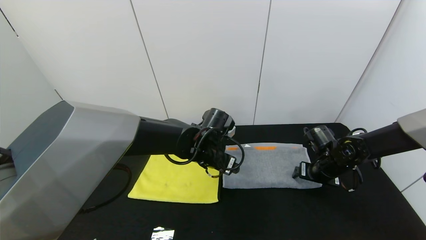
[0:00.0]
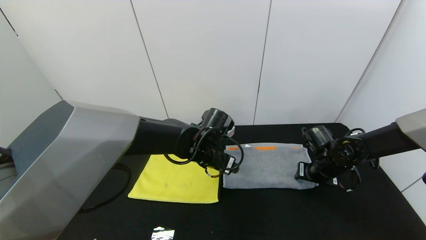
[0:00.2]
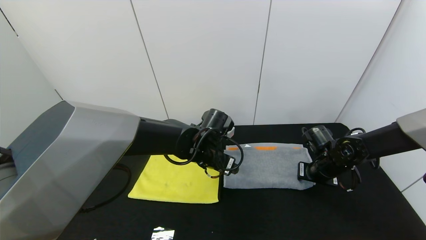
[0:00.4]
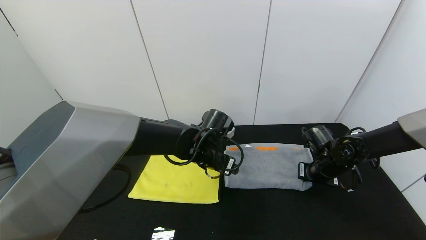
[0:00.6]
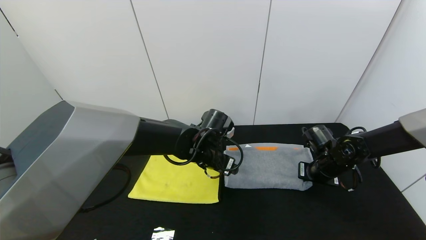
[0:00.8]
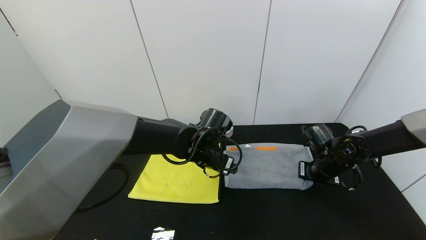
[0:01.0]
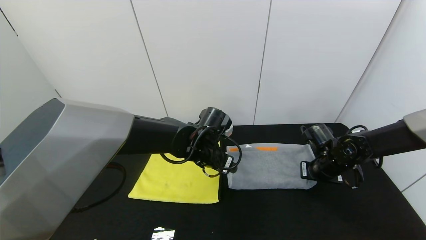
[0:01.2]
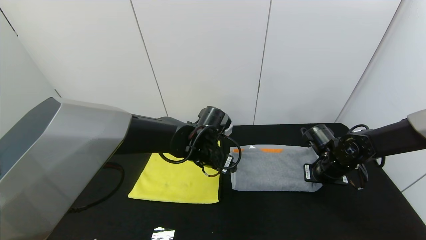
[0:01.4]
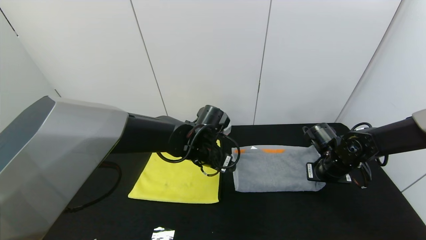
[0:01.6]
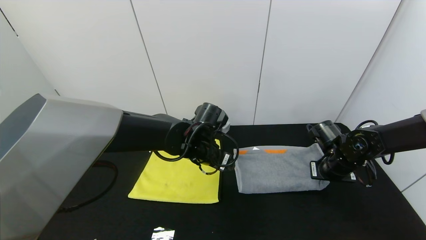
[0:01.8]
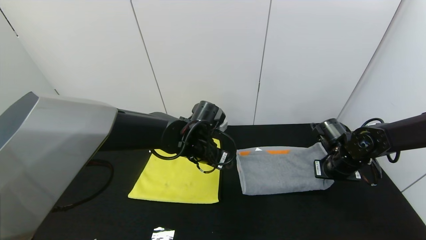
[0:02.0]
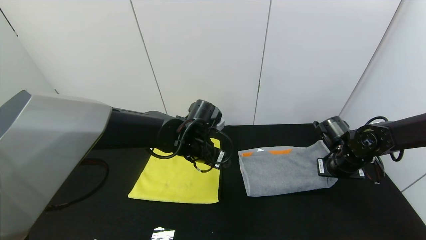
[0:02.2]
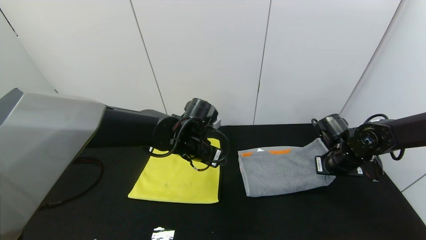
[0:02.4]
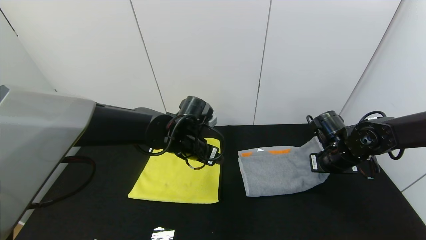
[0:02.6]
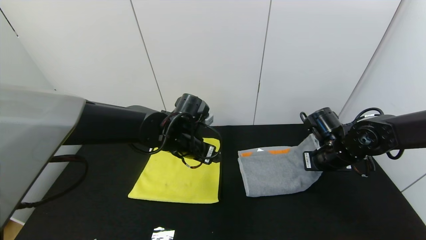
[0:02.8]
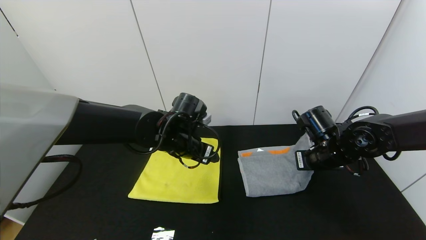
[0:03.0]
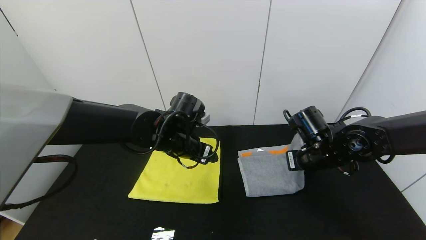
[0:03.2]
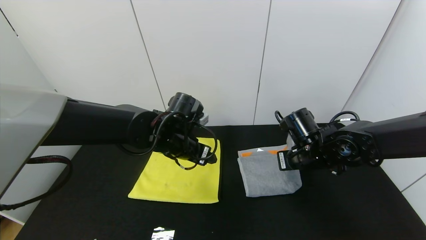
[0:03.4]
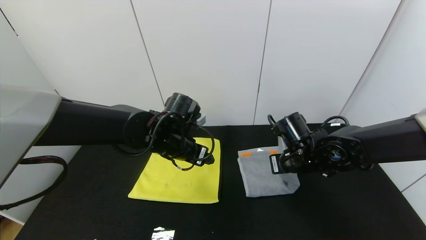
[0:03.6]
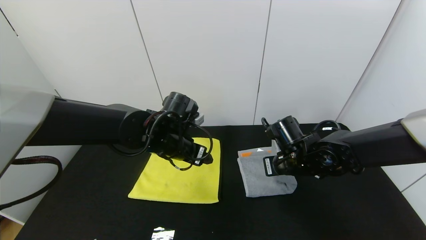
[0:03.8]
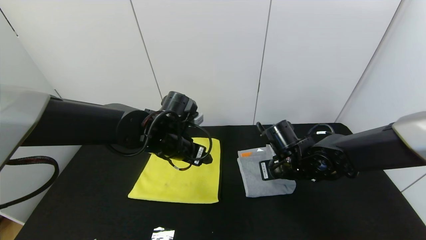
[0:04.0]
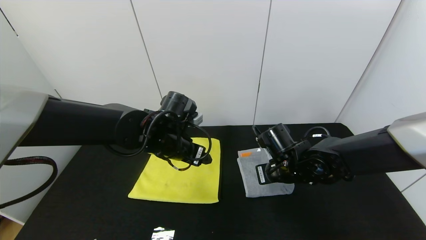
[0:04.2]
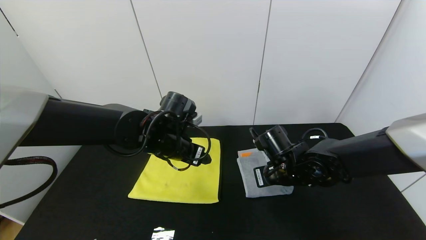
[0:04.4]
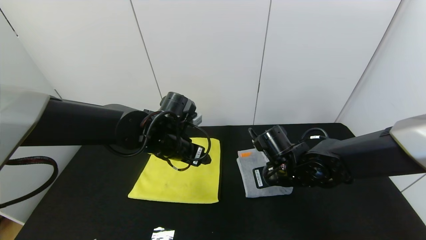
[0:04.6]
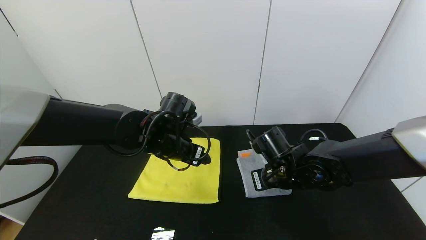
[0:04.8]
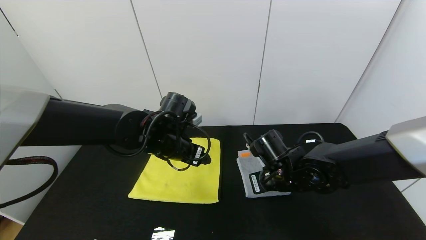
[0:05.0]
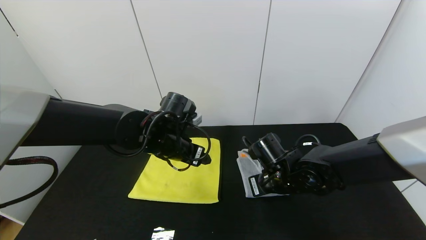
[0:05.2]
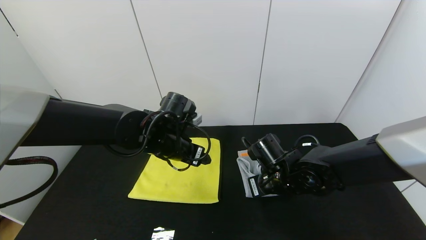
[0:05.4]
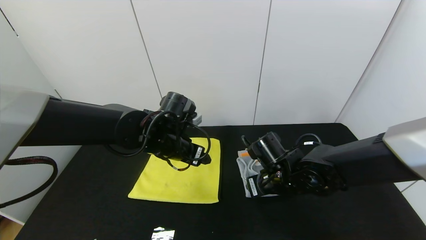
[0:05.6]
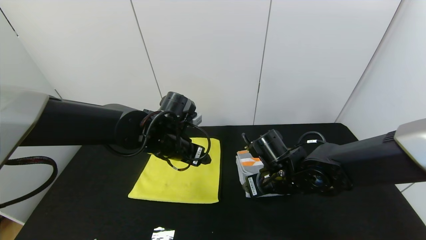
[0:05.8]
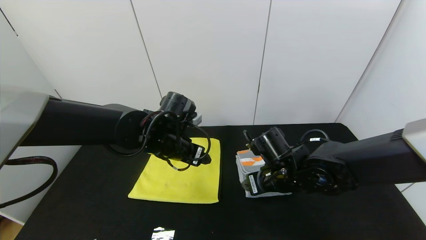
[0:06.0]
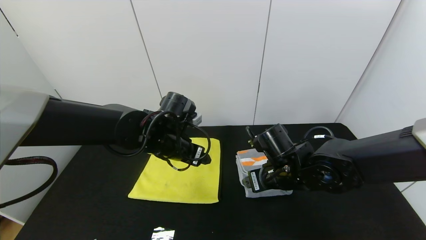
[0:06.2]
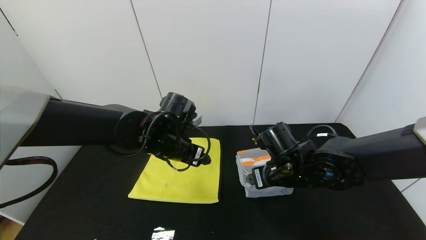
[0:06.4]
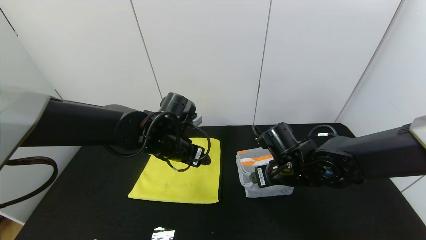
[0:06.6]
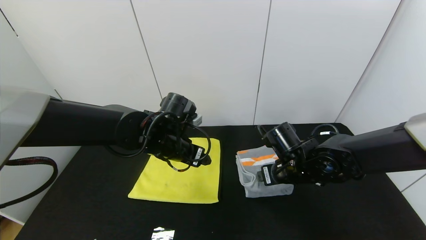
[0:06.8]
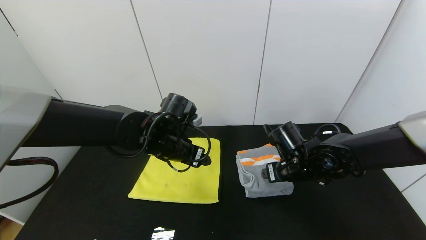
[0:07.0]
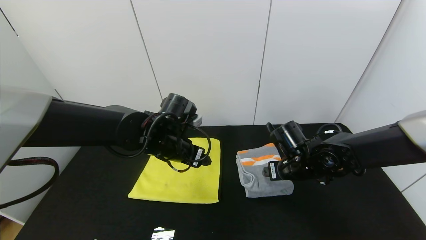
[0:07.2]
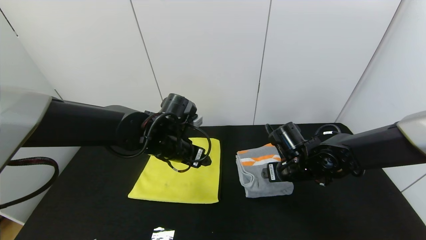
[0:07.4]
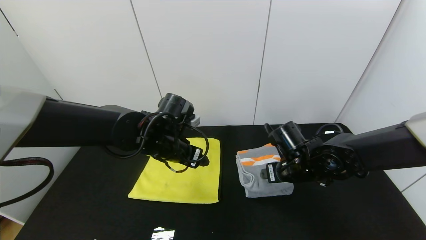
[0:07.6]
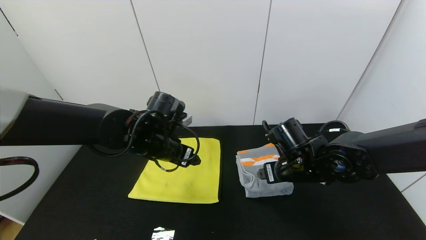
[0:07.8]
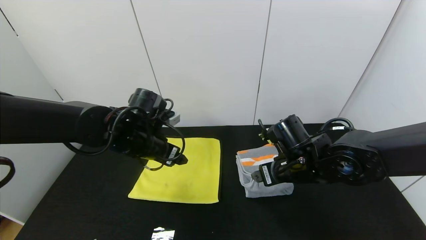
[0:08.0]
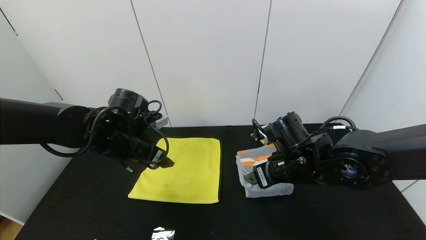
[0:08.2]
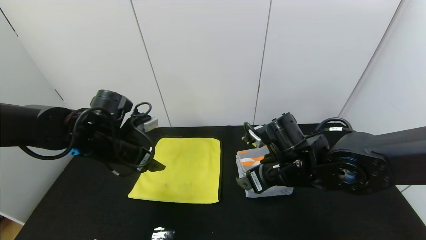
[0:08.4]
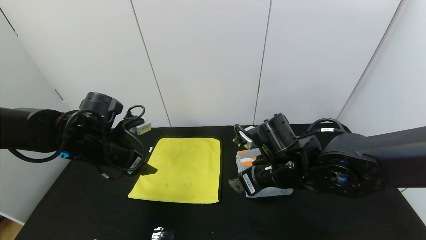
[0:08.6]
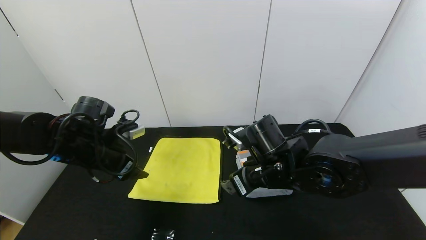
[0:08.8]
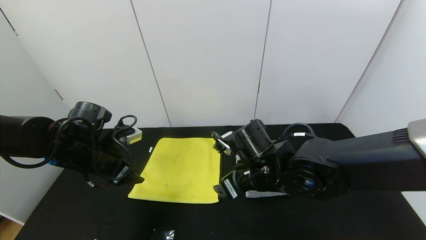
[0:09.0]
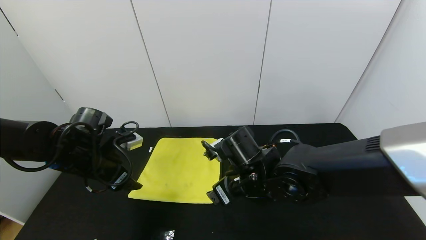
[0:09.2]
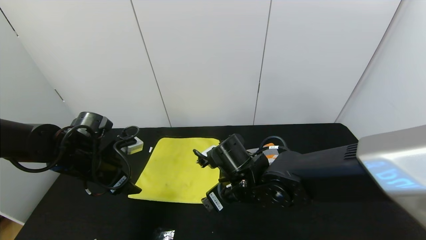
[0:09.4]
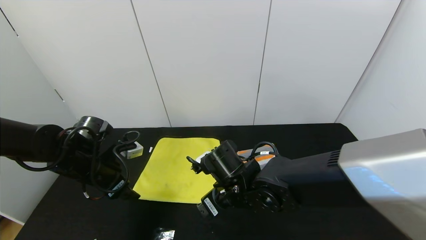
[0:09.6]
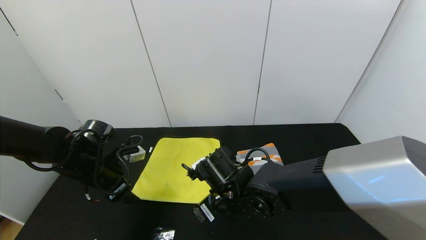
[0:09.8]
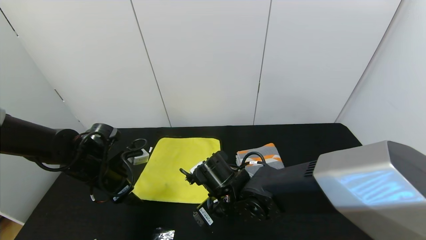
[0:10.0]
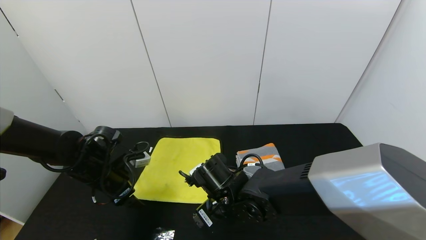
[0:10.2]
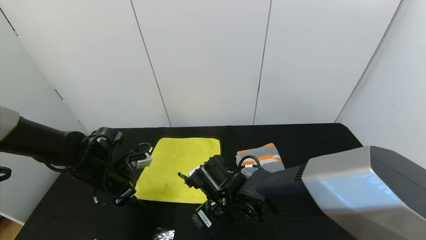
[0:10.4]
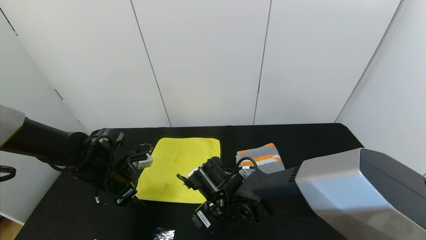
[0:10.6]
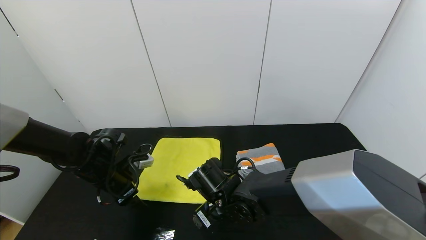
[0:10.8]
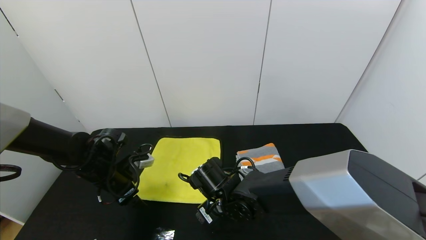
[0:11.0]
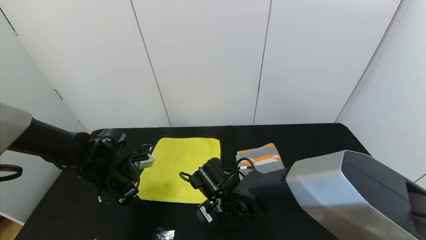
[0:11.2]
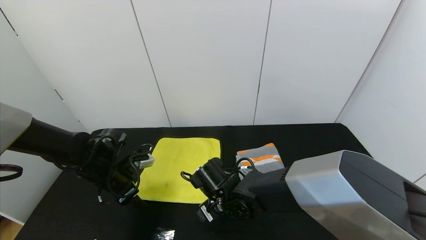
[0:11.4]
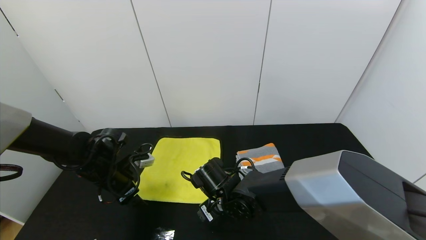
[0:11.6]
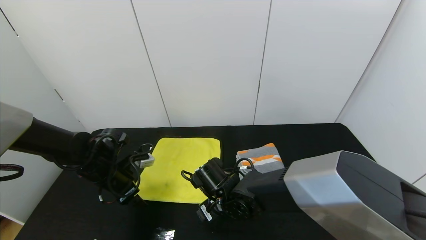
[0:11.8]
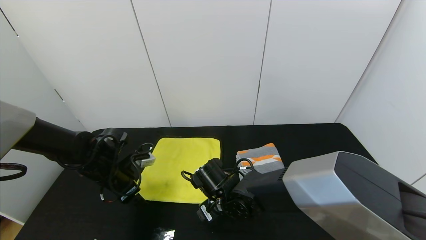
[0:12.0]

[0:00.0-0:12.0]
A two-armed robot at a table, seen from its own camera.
Task of the whole recording: Use the gripper to fold the yellow towel and grey towel in half twice,then put the yellow towel on the grey towel.
Step, 0:00.0 to 0:07.0: Fold the gray towel from right to left with right gripper.
0:00.0 to 0:01.6: The right gripper closes its fingers.
0:01.6 to 0:03.0: The left gripper shifts by about 5 cm. Meanwhile the right gripper shifts about 10 cm to the left and upward.
0:03.0 to 0:04.4: The right gripper goes roughly 10 cm to the left.
0:04.4 to 0:06.0: The right gripper opens.
0:07.6 to 0:09.0: The left gripper moves to the left, about 15 cm. Meanwhile the right gripper heads to the left, covering roughly 10 cm.
0:09.0 to 0:10.4: The left gripper moves downward, roughly 5 cm. Meanwhile the right gripper shifts approximately 10 cm downward and to the left.
0:10.4 to 0:12.0: The grippers move only a little.

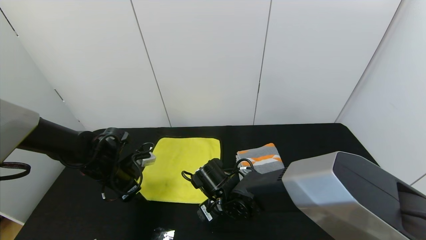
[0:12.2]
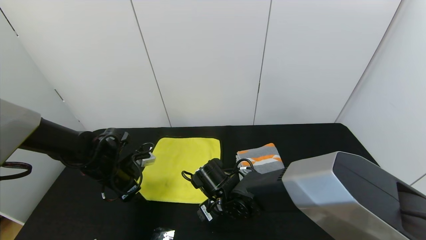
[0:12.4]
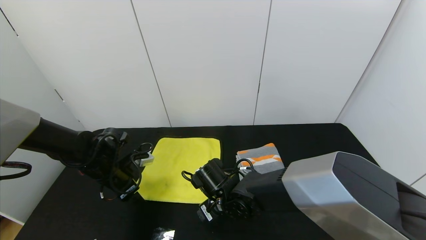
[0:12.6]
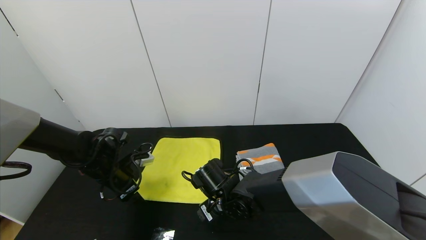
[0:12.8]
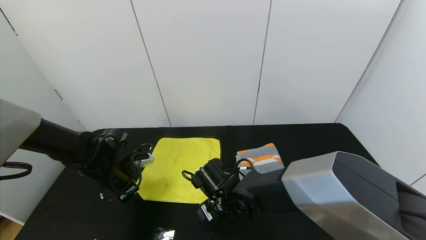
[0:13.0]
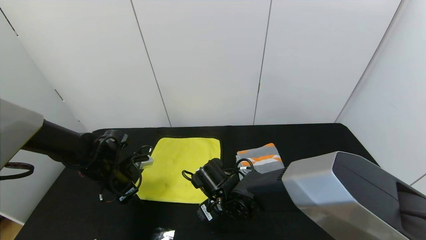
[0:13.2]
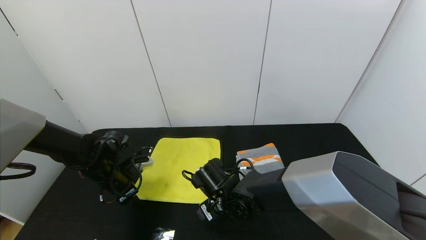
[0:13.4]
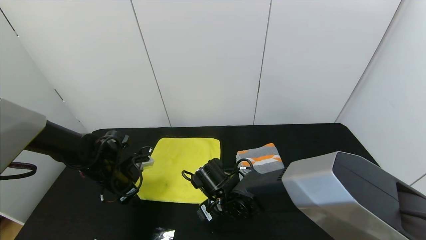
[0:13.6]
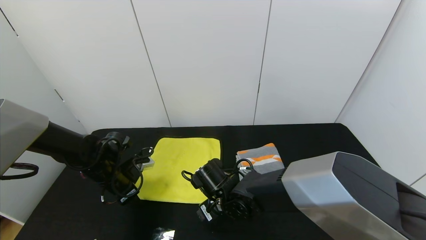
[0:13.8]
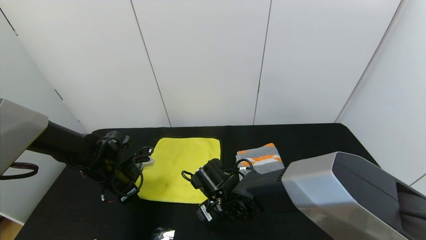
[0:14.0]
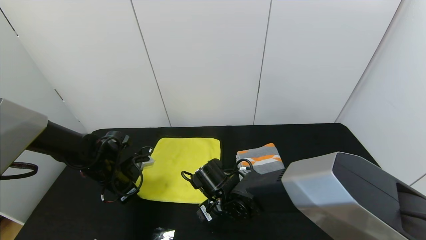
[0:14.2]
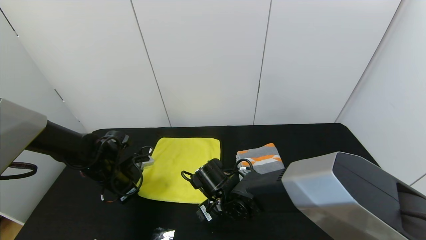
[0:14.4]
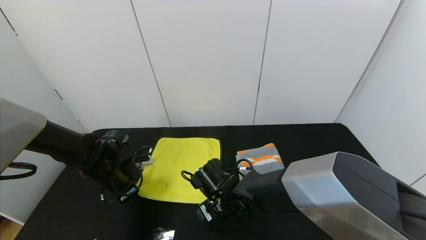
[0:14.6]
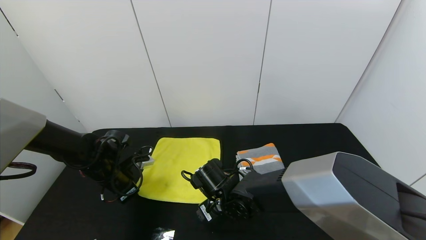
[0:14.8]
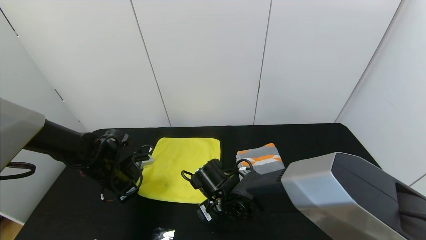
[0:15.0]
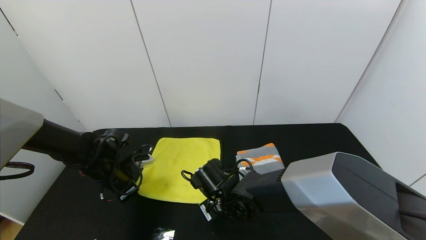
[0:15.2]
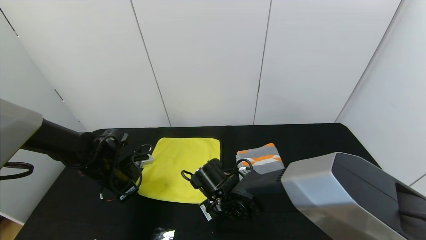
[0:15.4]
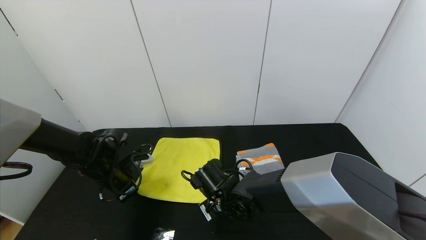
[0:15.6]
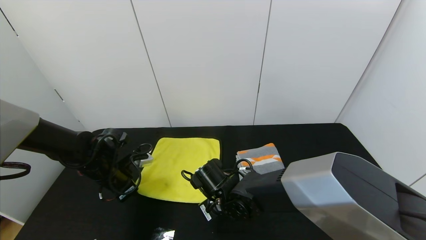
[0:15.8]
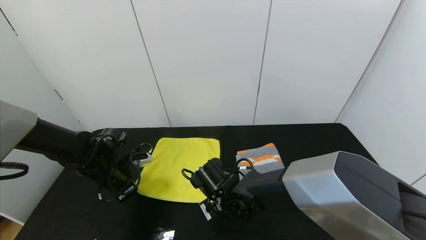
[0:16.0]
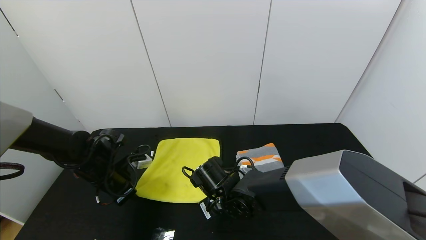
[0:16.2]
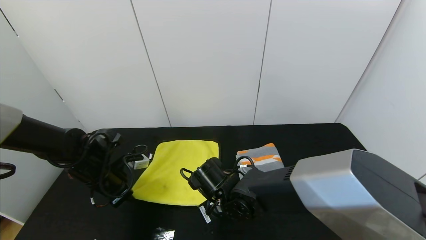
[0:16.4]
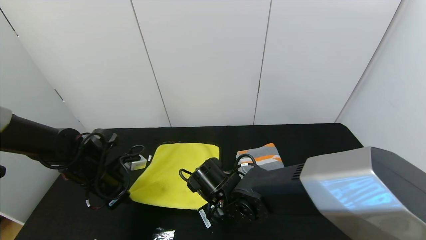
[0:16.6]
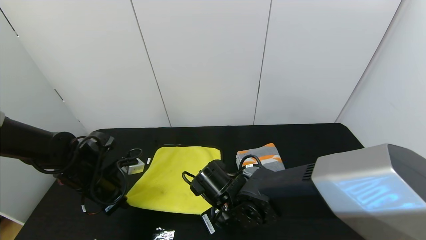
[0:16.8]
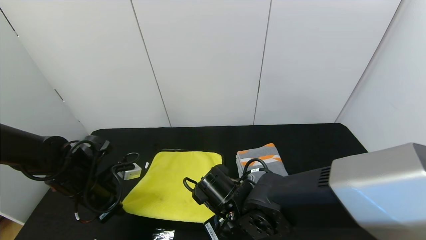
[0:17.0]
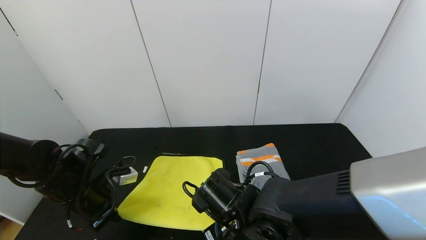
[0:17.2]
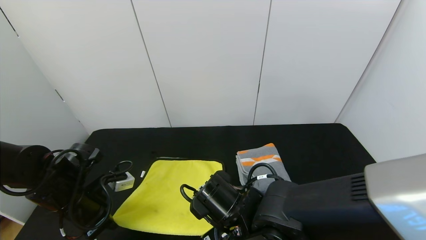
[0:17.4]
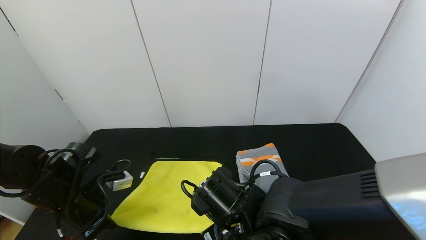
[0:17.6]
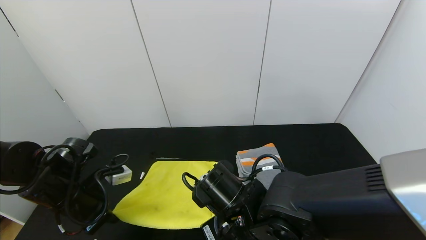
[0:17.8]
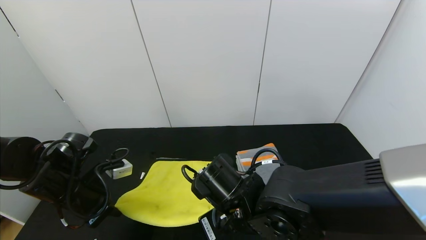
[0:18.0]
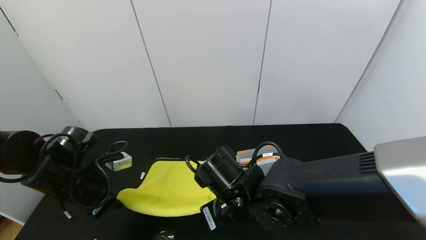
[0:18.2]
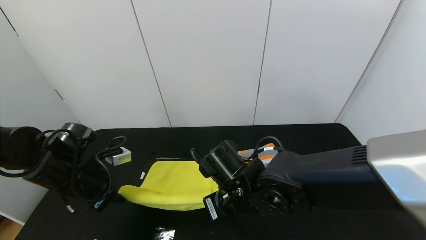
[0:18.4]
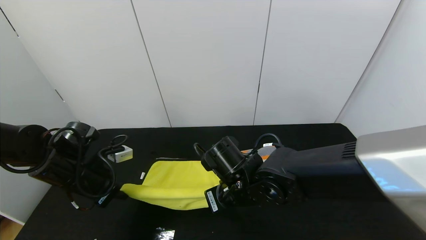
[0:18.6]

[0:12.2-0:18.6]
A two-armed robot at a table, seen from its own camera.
Task of the whole recording: Use the gripper to fold the yellow towel and grey towel in half twice,then put the yellow towel on the grey towel.
0:12.2 to 0:13.8: There are only small adjustments of the grippers.
0:13.8 to 0:15.4: The right gripper closes, while the left gripper closes up.
0:15.4 to 0:17.0: Both grippers travel together backward, some 5 cm. The right gripper closes up.
0:17.0 to 0:18.6: The right gripper ends up roughly 5 cm from where it was.
